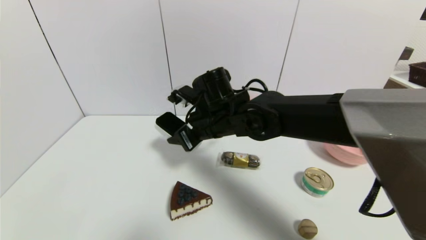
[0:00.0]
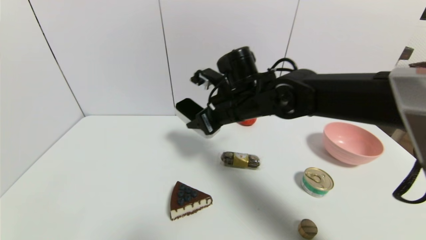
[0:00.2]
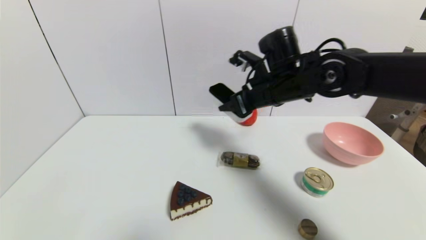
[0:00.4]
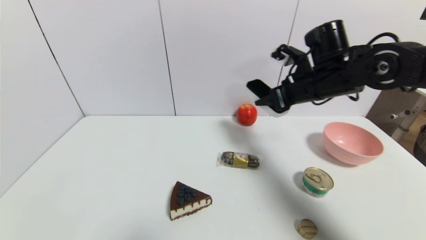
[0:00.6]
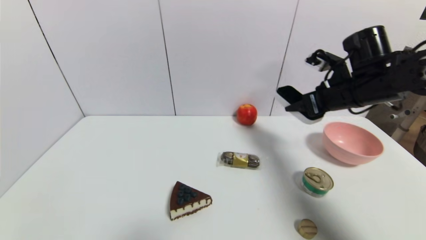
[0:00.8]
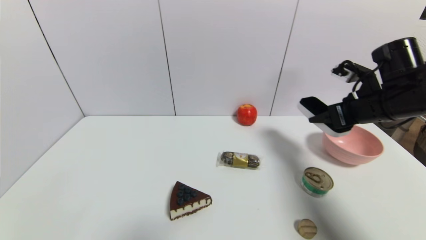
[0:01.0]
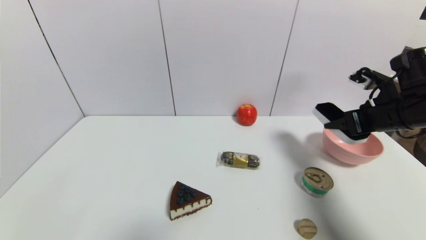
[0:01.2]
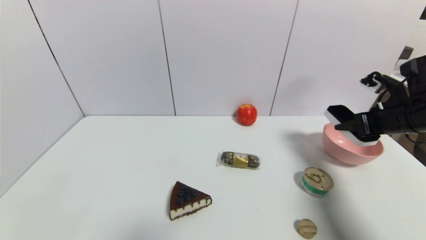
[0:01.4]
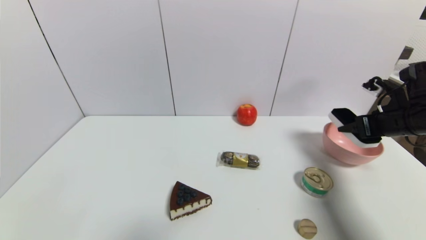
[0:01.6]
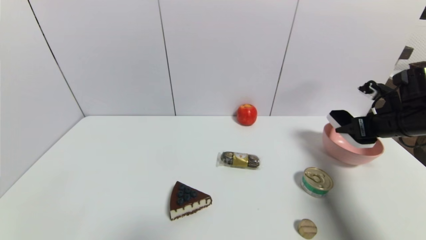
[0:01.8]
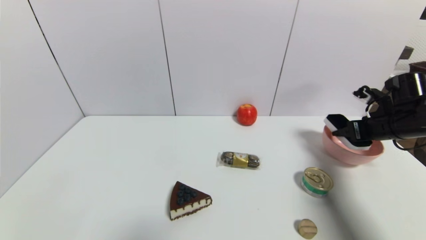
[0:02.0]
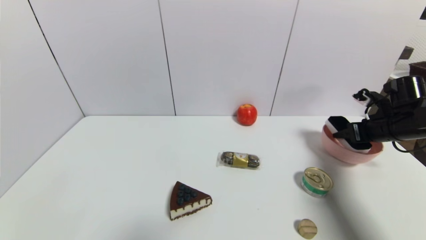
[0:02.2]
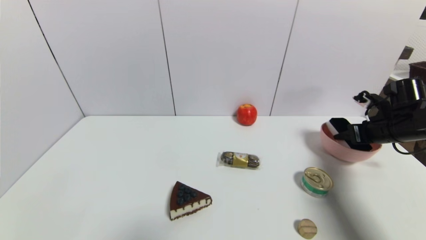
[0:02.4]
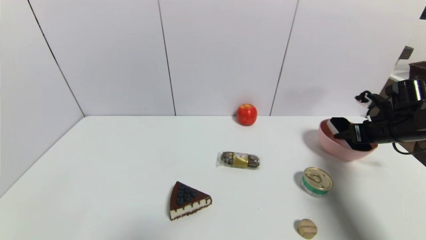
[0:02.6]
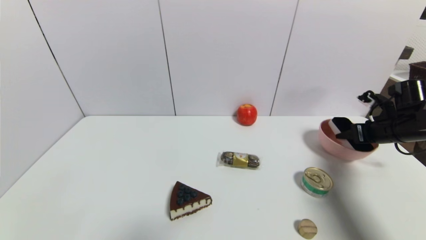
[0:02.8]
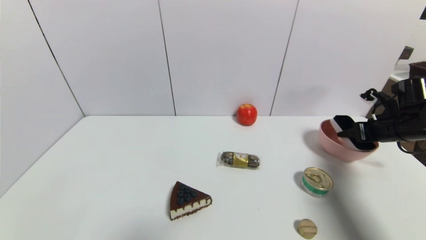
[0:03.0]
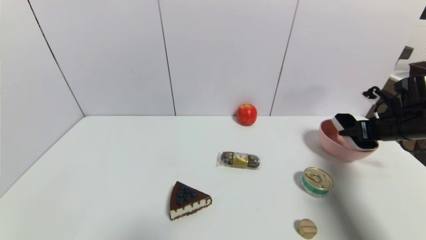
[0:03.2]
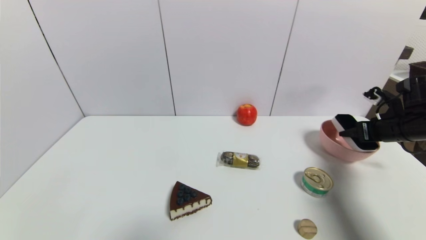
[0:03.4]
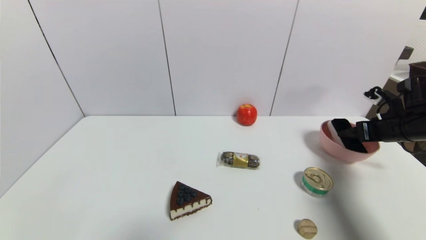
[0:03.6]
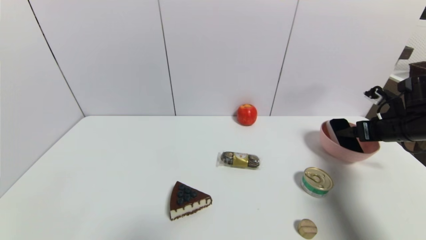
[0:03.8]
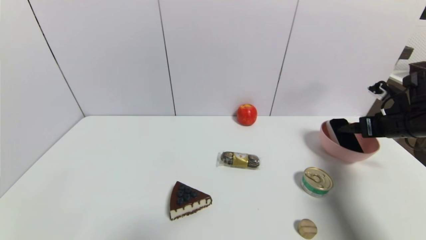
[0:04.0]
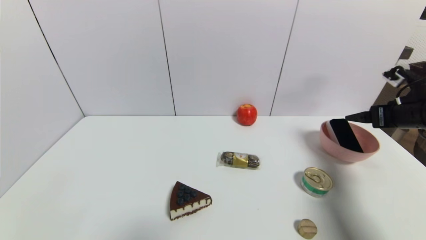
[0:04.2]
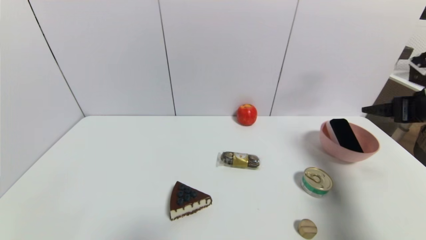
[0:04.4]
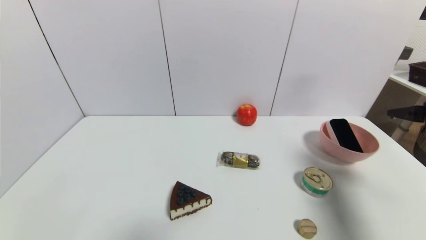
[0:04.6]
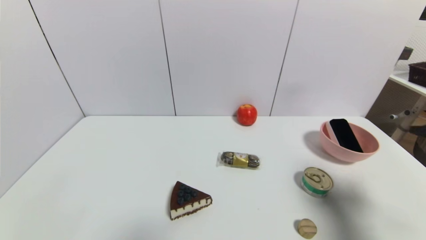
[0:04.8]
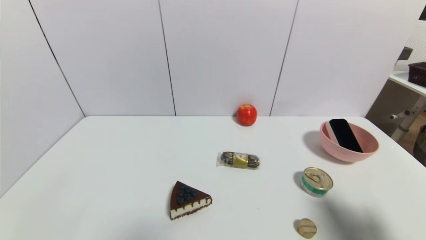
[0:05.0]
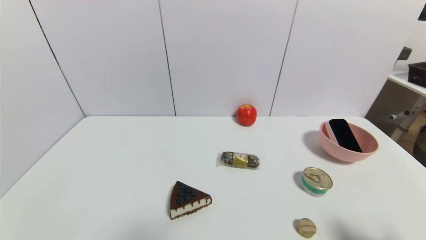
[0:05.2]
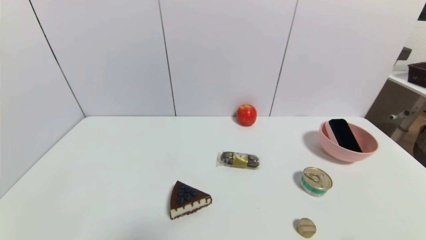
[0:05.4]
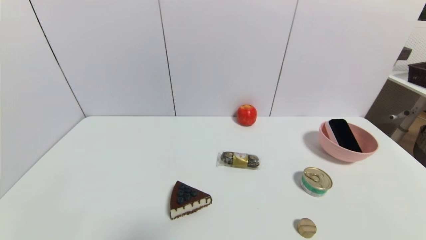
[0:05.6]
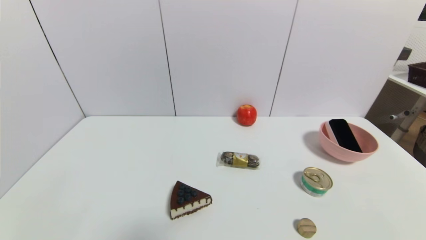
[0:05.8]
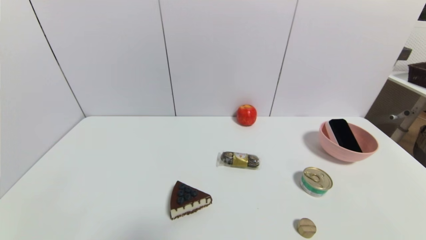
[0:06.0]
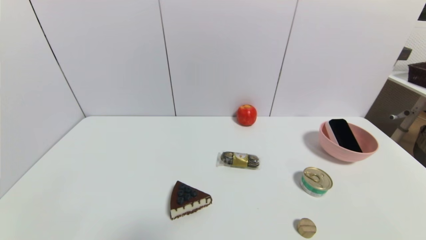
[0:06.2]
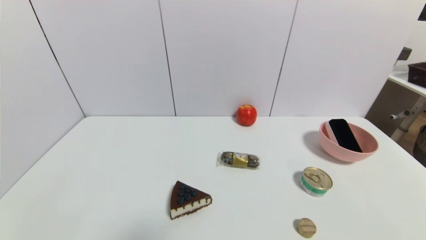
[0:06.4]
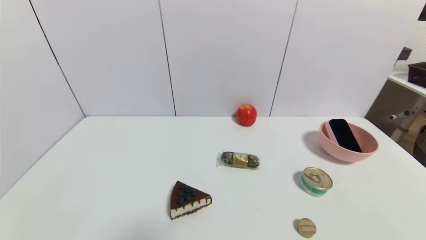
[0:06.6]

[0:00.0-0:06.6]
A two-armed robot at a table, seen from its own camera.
Task of the whole recording: use a gripper to pick the target object and place on the pink bowl.
Step, 0:00.0 to 0:04.0: Place the blackboard erasure on the pink bowl with the right gripper.
0:00.0 to 0:01.6: The right gripper is displaced to the right by about 35 cm.
0:01.6 to 0:03.2: The grippers move only a little.
0:03.2 to 0:05.0: The right gripper moves backward, approximately 25 cm, and opens up.
0:05.0 to 0:06.6: The right gripper goes about 15 cm downward and backward.
